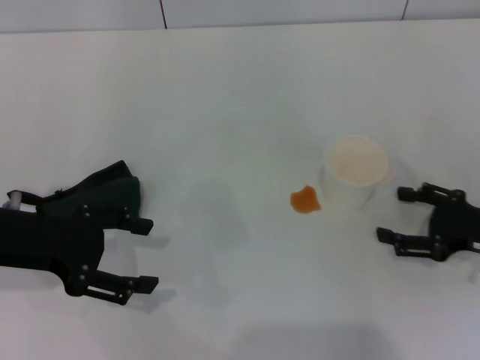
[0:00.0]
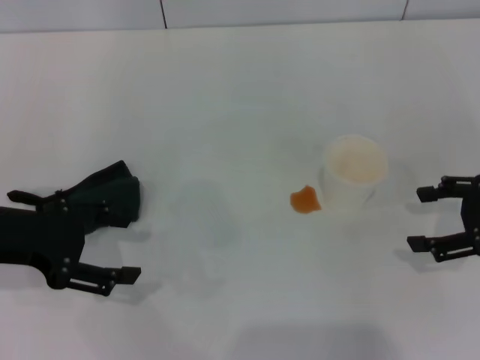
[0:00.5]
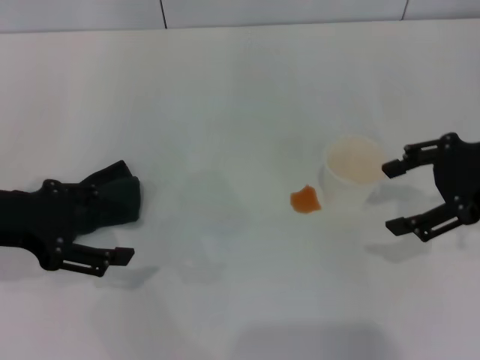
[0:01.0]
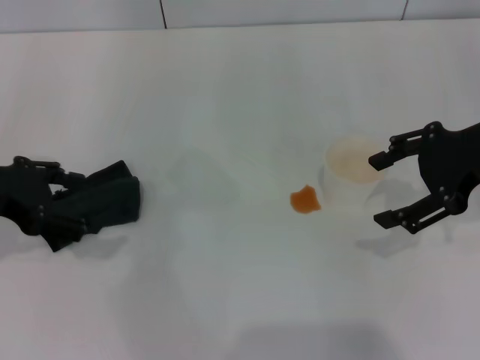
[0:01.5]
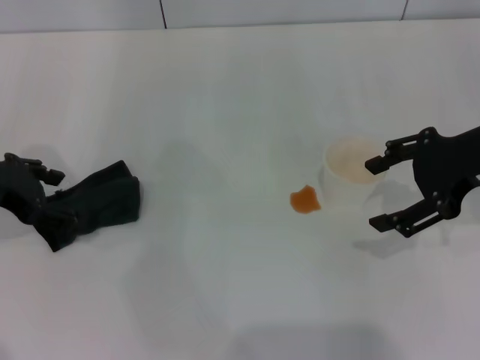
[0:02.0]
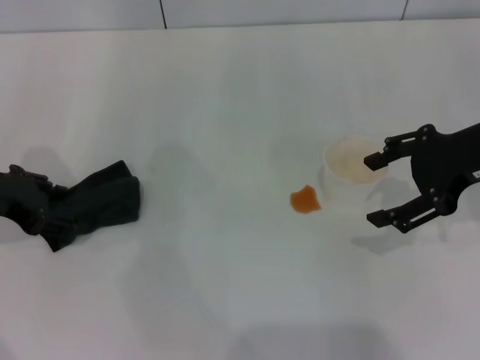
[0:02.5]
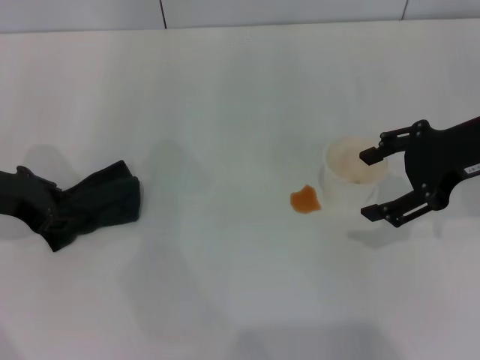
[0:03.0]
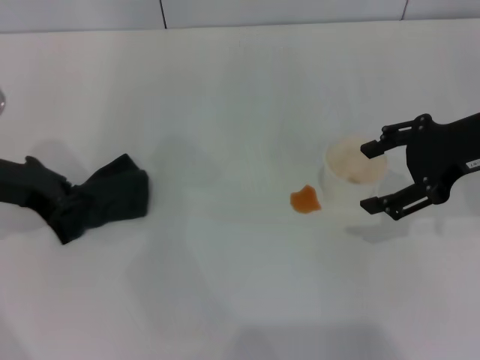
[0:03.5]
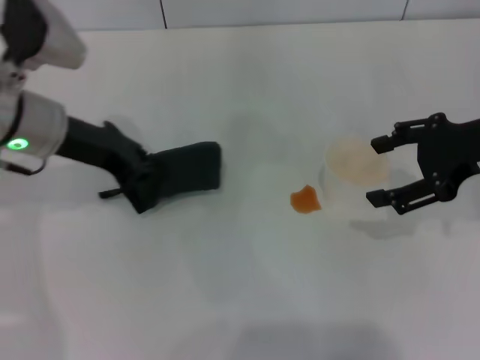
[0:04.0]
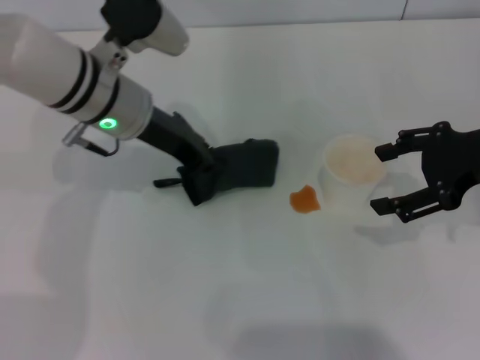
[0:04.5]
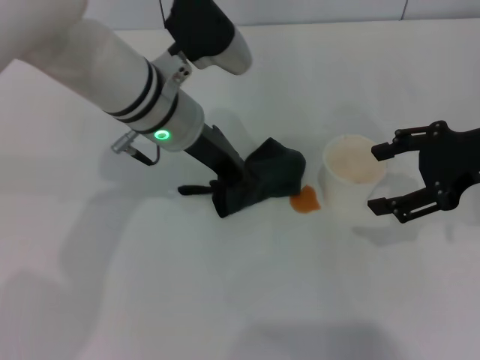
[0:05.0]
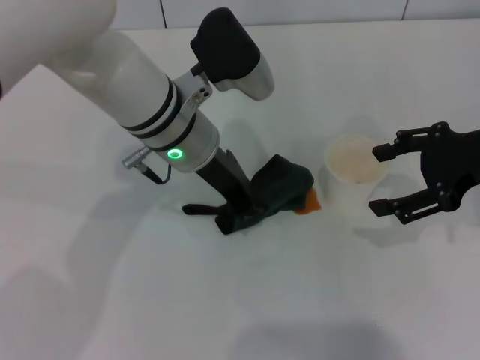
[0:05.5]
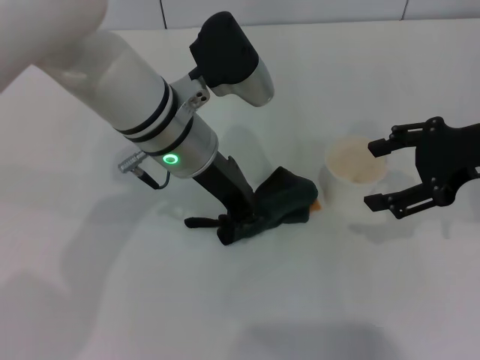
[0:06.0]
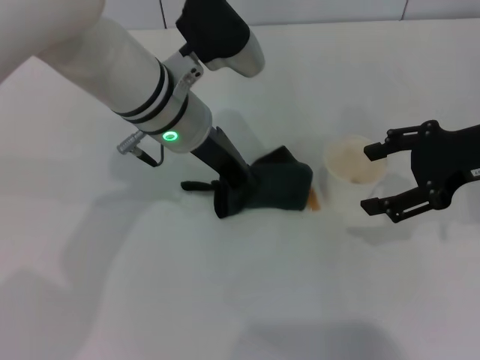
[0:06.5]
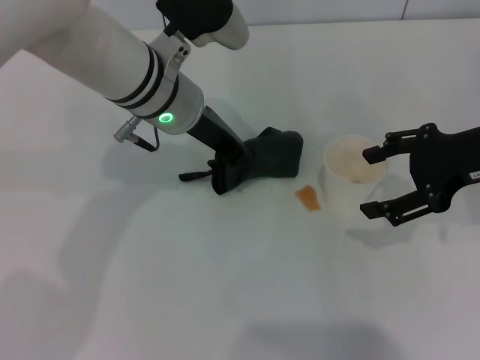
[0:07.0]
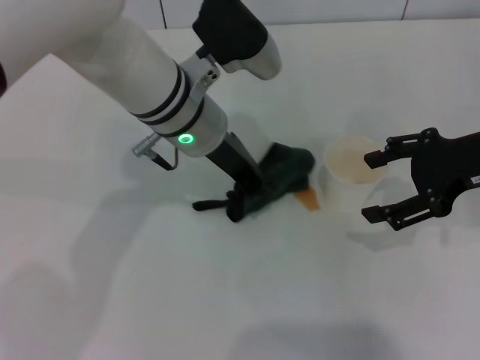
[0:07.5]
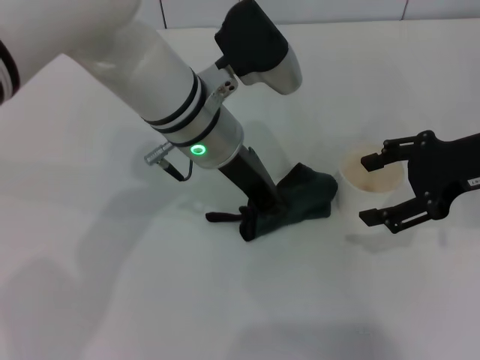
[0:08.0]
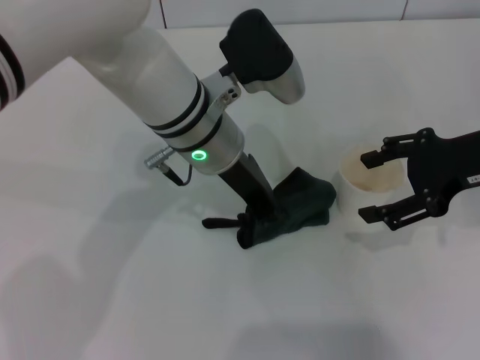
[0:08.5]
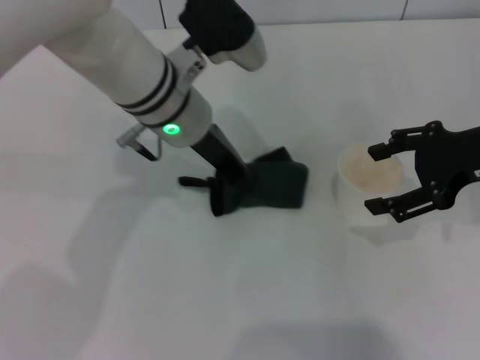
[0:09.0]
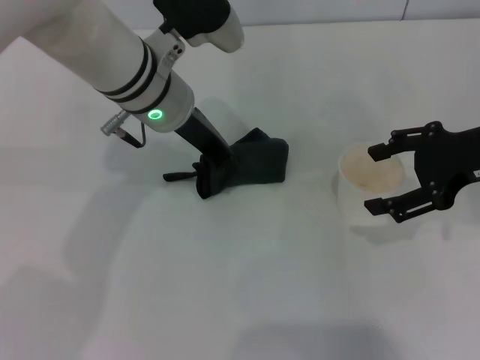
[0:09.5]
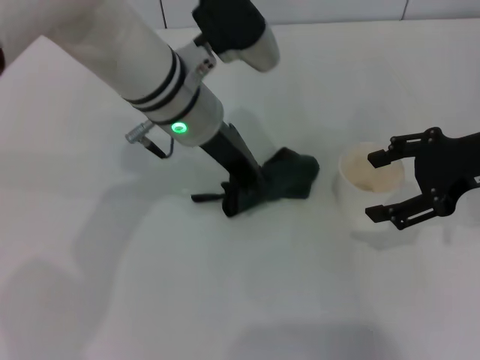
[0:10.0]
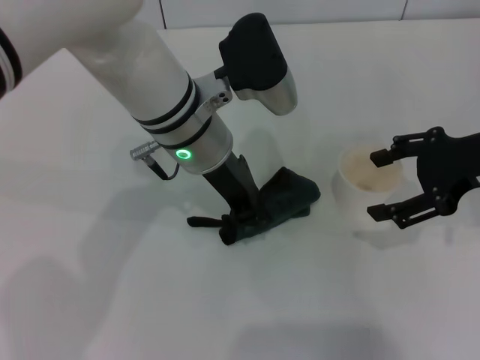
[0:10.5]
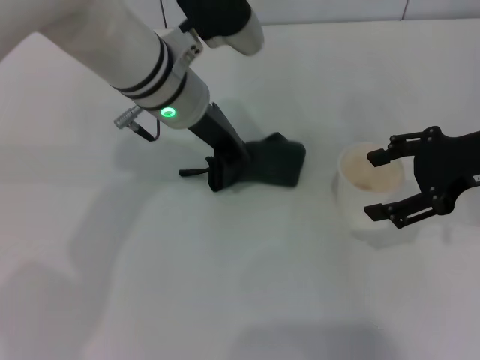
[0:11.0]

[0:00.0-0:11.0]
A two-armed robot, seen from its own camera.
Step, 0:00.0 to 0:03.0: Grasp the rag with the left gripper.
Step, 0:03.5 to 0:08.5: Wipe the stains off the table with the left gripper.
0:00.0 to 0:02.0: The right gripper travels upward by roughly 15 cm. The left gripper shifts by approximately 5 cm.
0:02.0 to 0:03.5: The left gripper closes its fingers.
0:03.5 to 0:05.5: The left gripper travels to the right by about 20 cm.
0:05.5 to 0:11.0: The grippers move only a little.

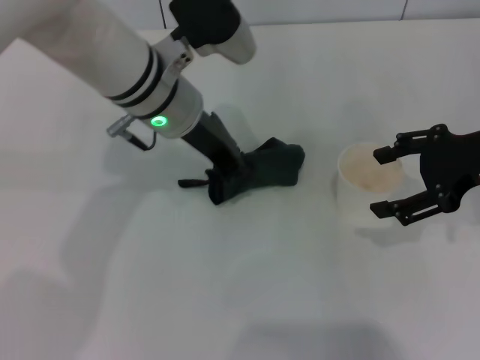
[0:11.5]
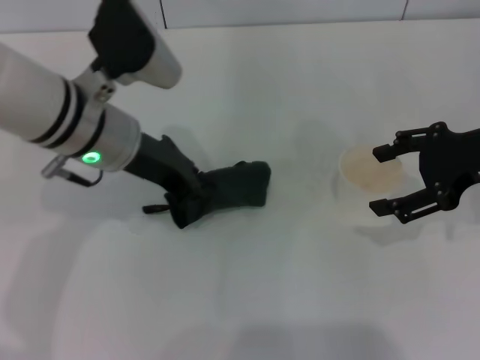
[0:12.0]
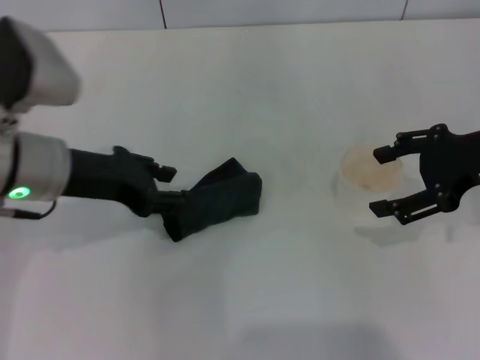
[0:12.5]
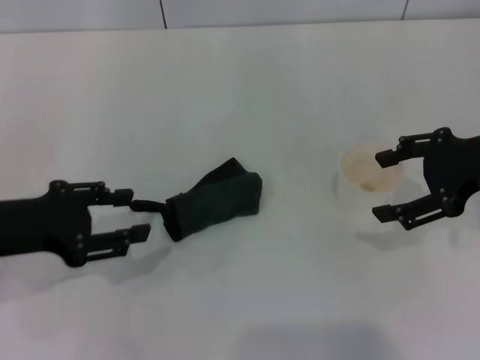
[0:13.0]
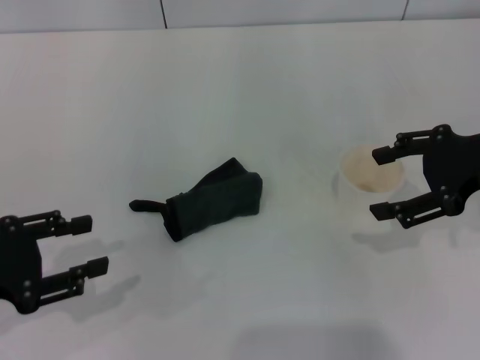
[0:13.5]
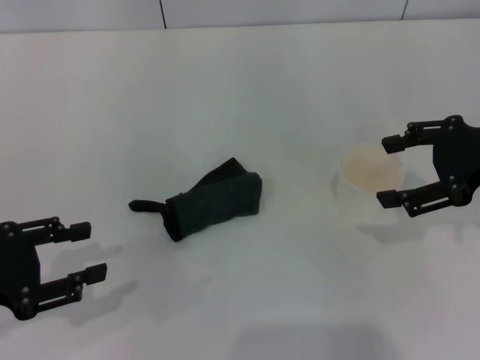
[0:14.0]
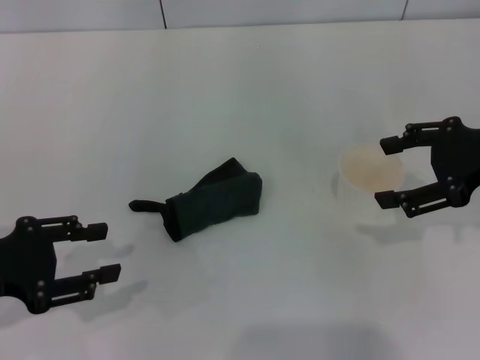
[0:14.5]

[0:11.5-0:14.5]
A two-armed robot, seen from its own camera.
0:11.5 to 0:13.0: The left gripper travels to the left and backward by roughly 25 cm, and opens.
